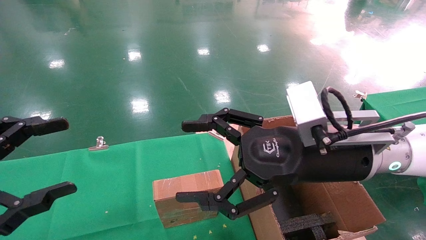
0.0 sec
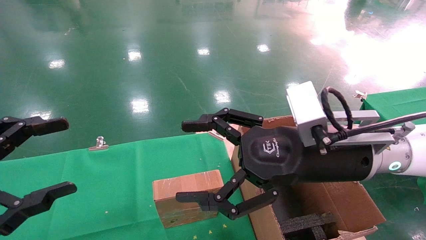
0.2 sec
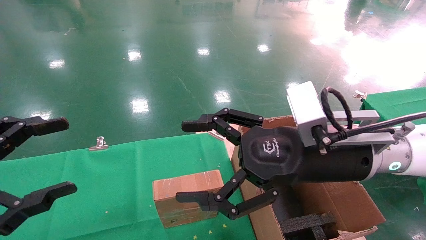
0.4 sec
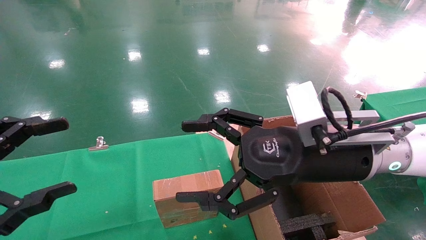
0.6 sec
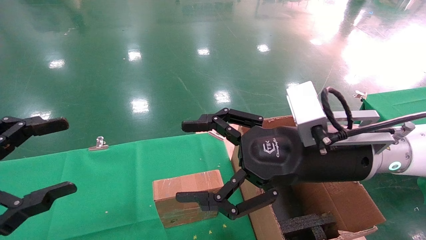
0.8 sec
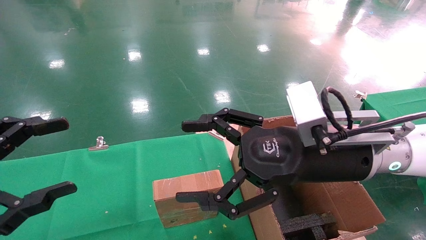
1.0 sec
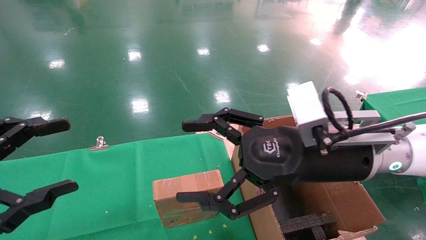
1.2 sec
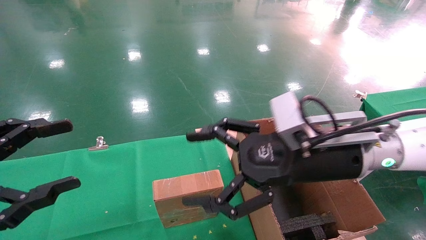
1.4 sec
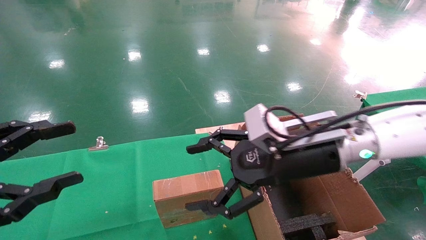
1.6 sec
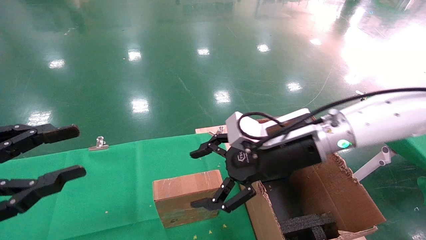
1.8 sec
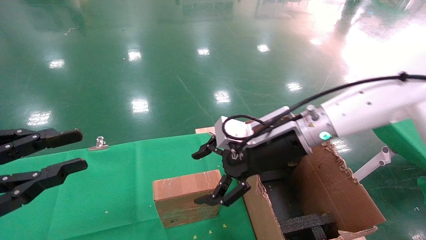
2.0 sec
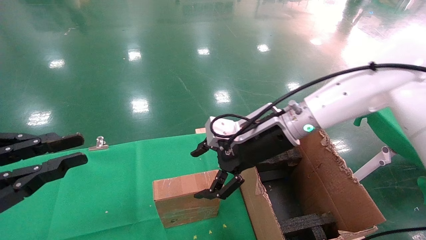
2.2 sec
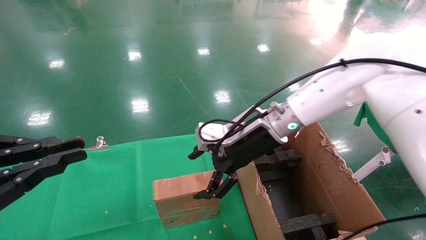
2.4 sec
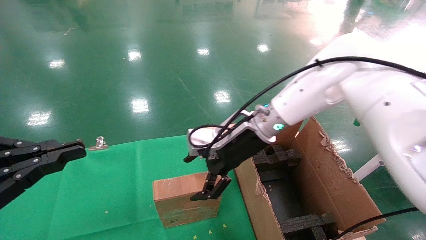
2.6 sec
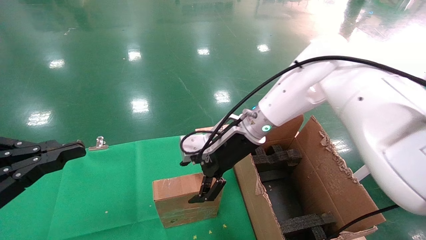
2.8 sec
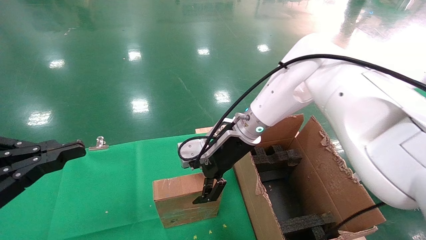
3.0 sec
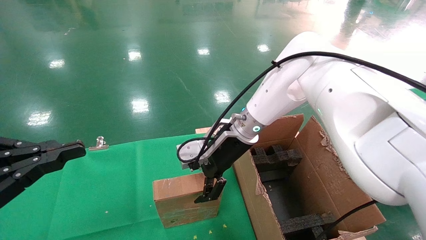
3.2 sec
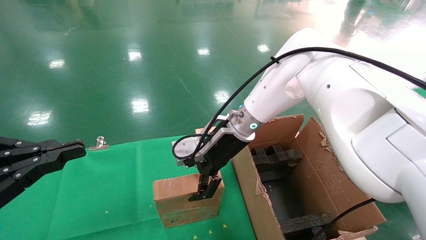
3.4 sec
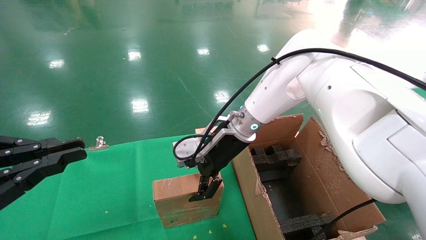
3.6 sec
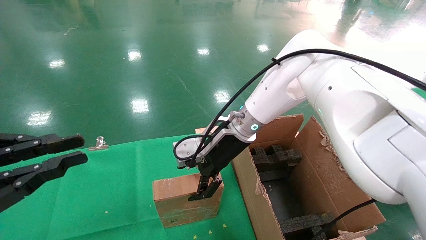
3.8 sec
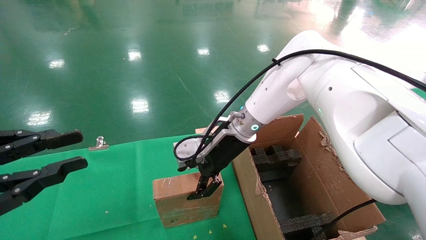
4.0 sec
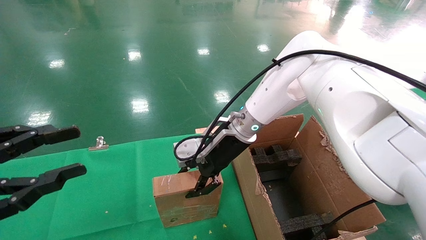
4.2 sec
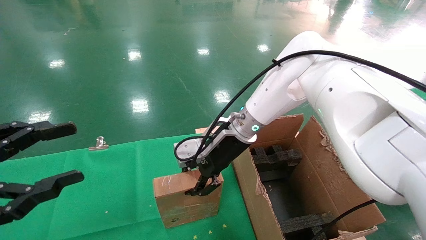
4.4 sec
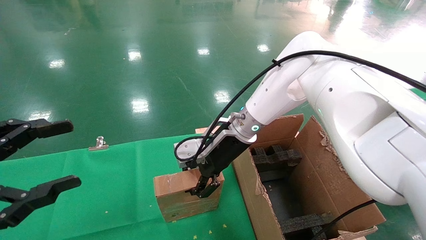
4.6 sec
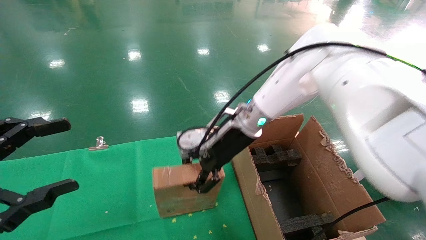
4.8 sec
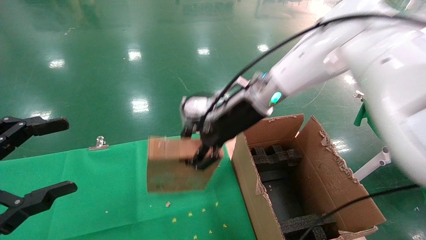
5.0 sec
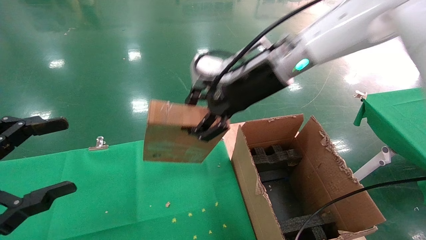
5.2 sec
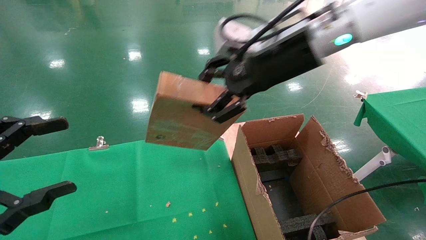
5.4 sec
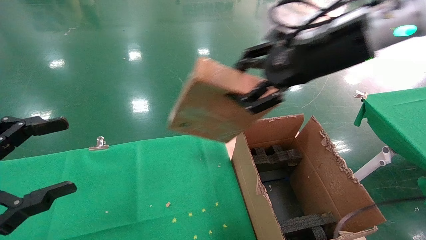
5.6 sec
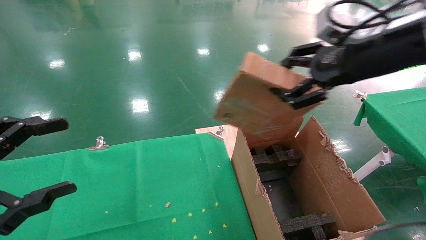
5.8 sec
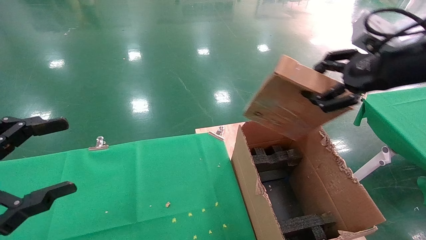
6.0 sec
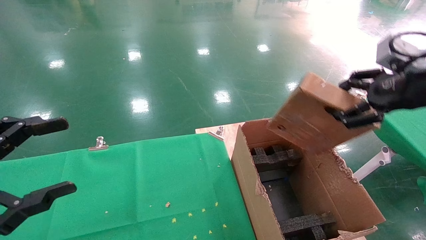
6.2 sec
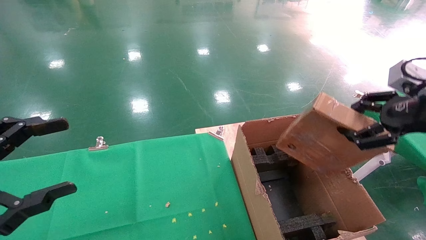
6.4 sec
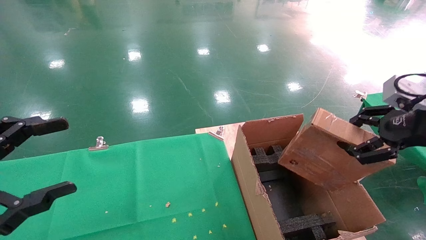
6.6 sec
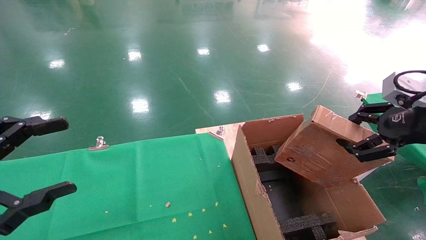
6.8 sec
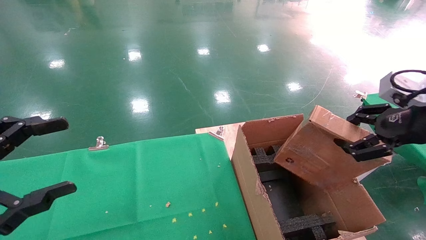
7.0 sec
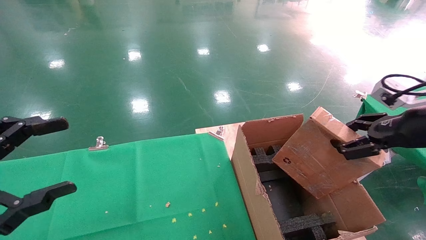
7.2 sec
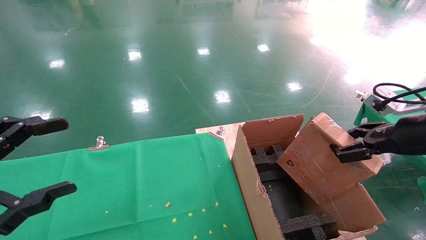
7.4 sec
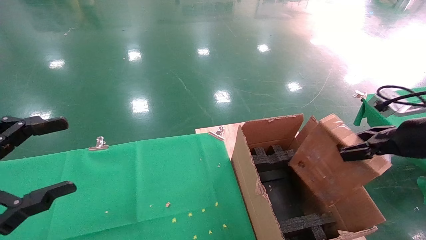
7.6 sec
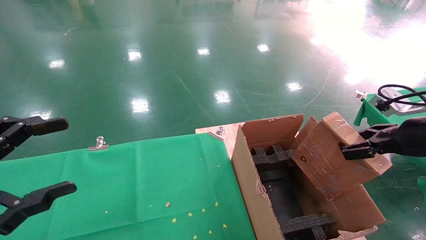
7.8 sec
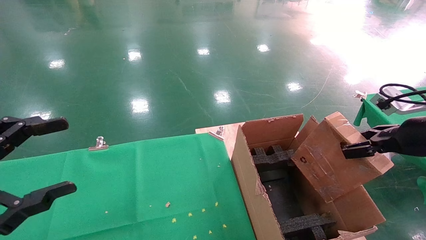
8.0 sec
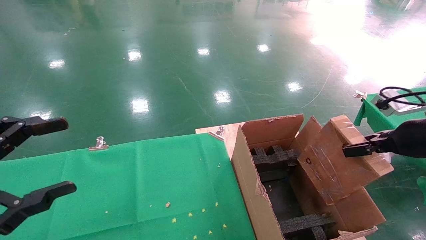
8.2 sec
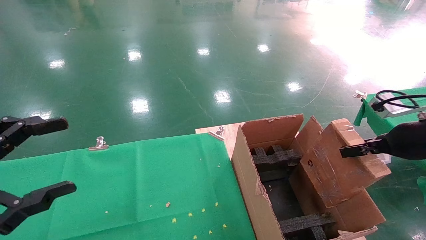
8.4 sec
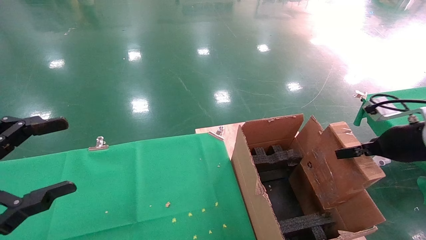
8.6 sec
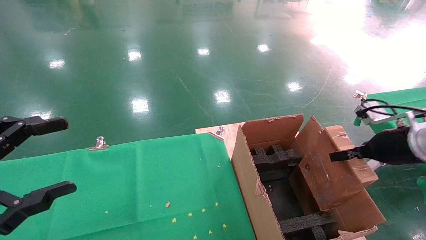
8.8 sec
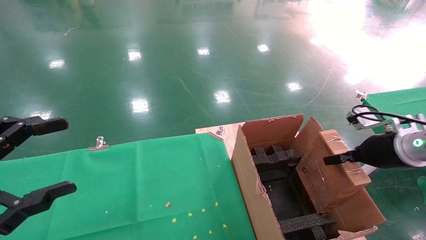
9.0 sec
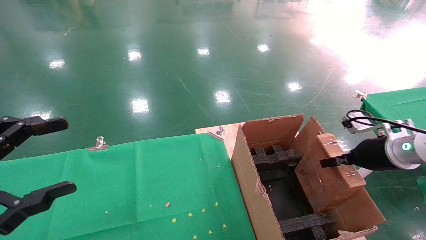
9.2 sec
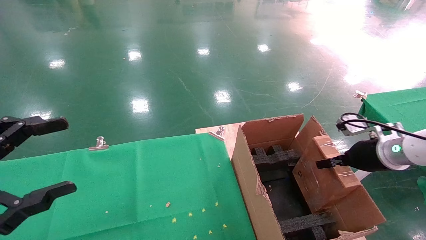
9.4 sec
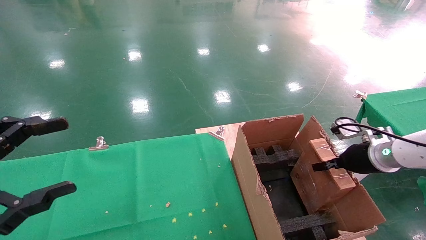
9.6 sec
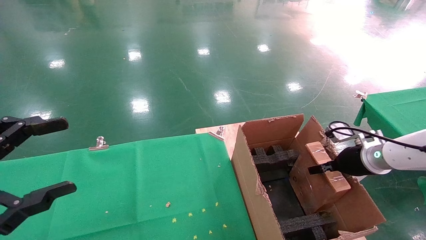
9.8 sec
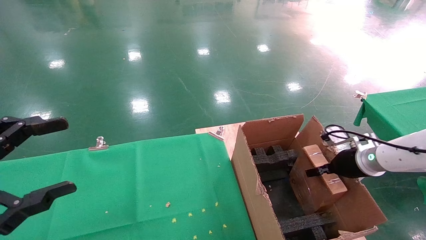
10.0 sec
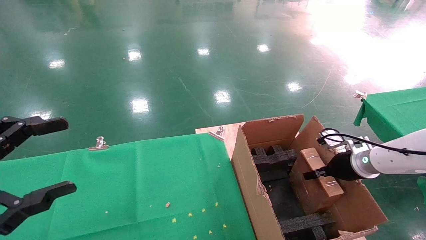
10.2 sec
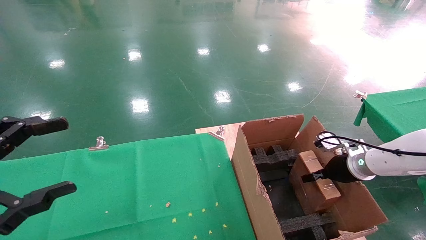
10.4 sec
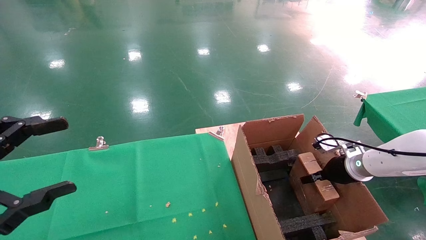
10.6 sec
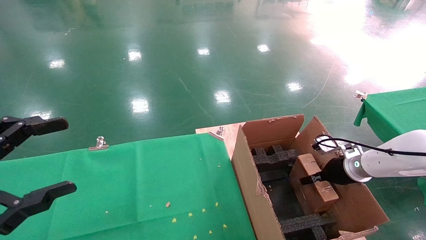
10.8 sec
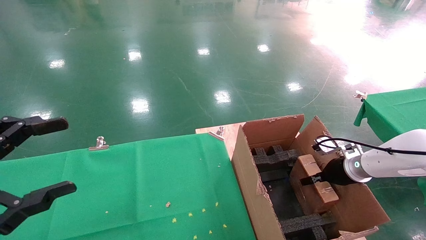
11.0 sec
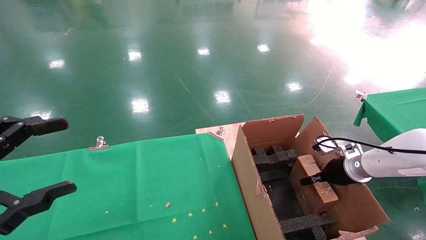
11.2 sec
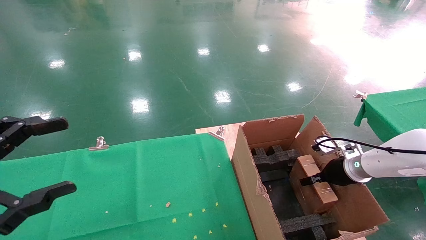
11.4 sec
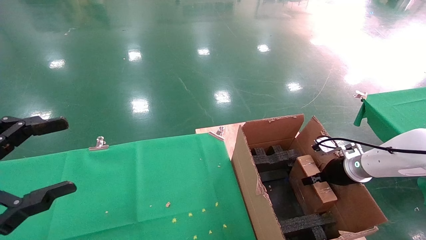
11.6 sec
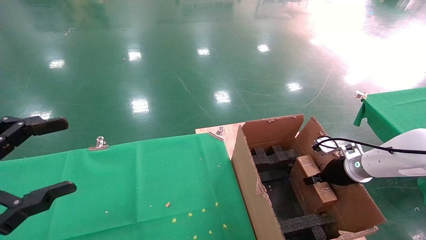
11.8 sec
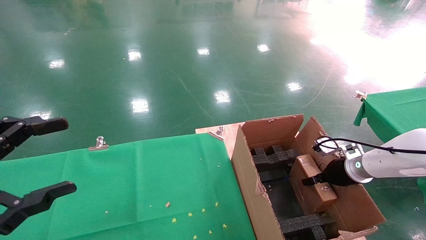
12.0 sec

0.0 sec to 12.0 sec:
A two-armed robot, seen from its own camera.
Task of the whole recording: using a robotic arm to pick up a cardboard box and palace it the carton.
Step, 1.4 sec to 4.6 sec: Pick up the mouse and the power cord paper box.
0.0 sec to 1.6 sec: The grippers make only small movements.
1.6 sec to 3.0 sec: The right gripper is displaced forward and to the left by approximately 15 cm. The left gripper closes up.
3.0 sec to 4.4 sec: The left gripper opens its fingers. The right gripper closes.
4.4 sec to 6.0 sec: The right gripper is displaced to the right, upward and backward by some 35 cm. The left gripper opens.
6.0 sec to 7.6 sec: The right gripper moves downward and to the right, some 15 cm.
7.6 sec to 9.0 sec: The right gripper is displaced forward and downward by approximately 10 cm.
9.0 sec to 10.4 sec: The right gripper heads downward and forward, covering about 15 cm.
10.4 sec to 12.0 sec: There are only small adjustments of the grippers.

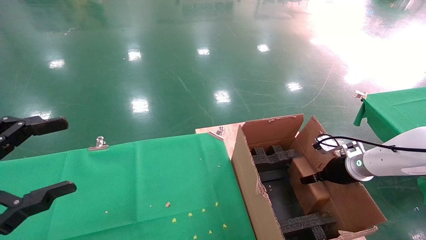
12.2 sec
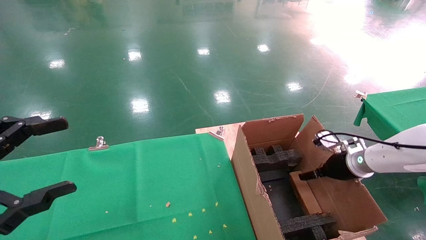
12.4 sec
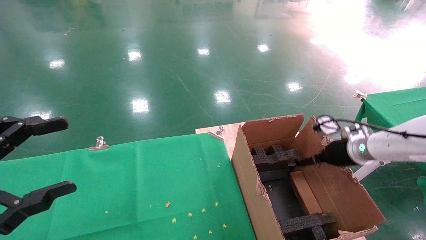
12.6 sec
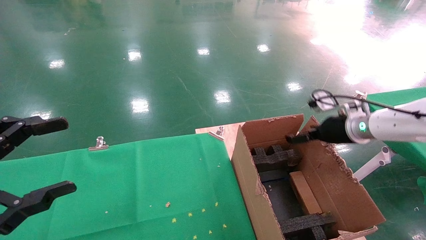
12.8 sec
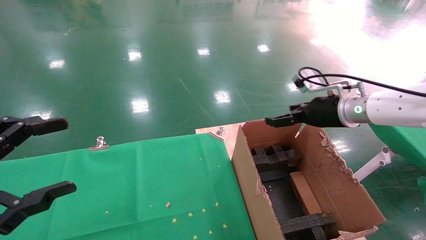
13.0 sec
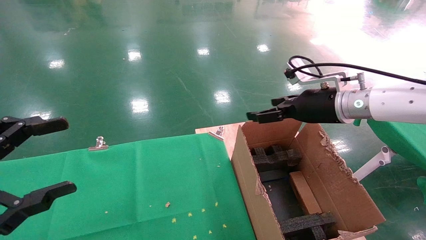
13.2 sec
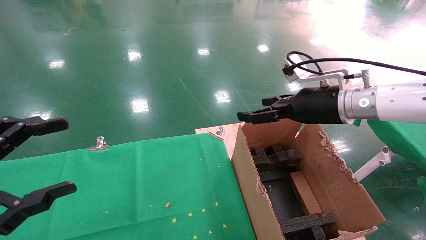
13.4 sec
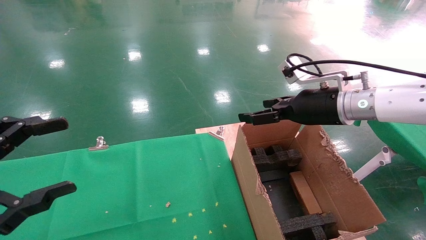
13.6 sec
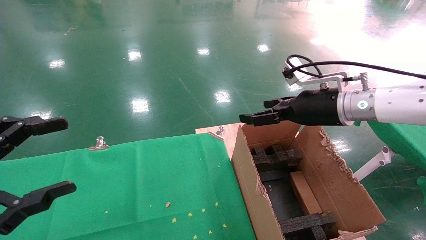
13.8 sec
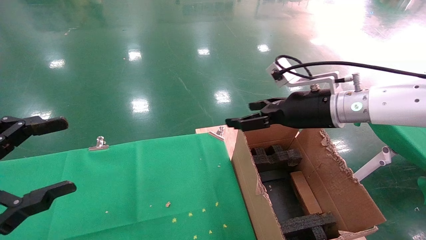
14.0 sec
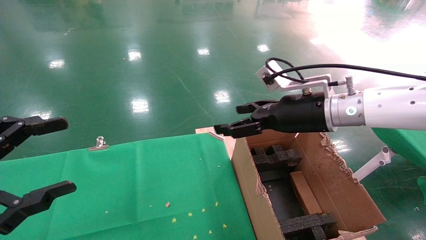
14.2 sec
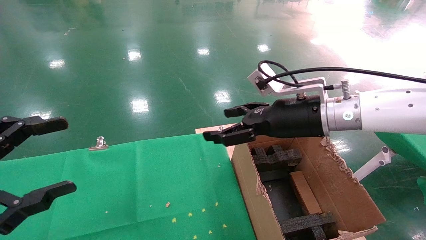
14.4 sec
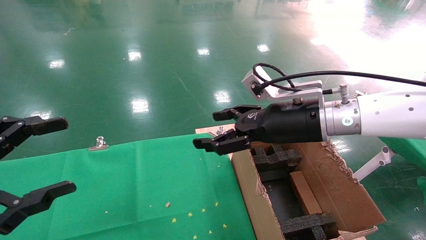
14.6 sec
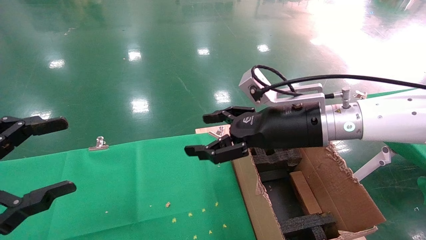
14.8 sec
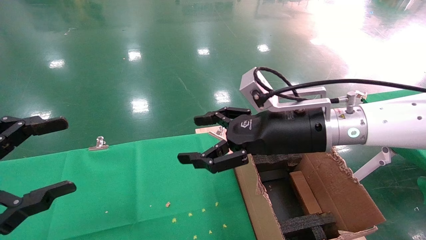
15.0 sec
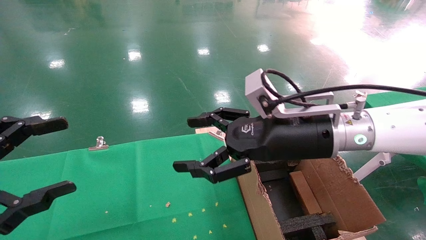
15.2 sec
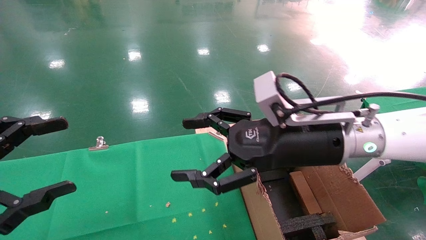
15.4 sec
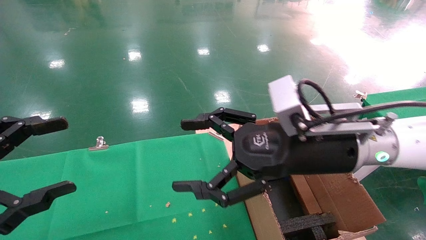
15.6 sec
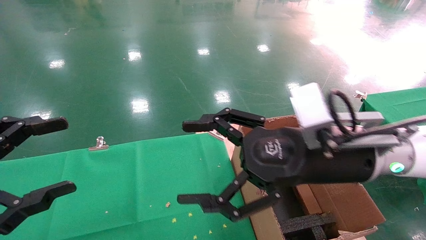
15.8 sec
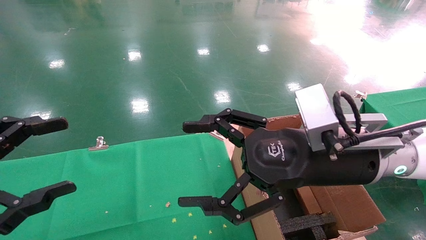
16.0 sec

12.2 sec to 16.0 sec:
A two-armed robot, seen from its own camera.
Task of the whole recording: using a robotic arm to pick up a cardboard box and palace it the carton.
12.2 sec to 13.4 sec: The right gripper heads upward and to the left, covering roughly 20 cm, and opens.
13.4 sec to 14.8 sec: The right gripper heads to the left, covering roughly 10 cm.
14.8 sec to 16.0 sec: The right gripper shifts approximately 5 cm backward.

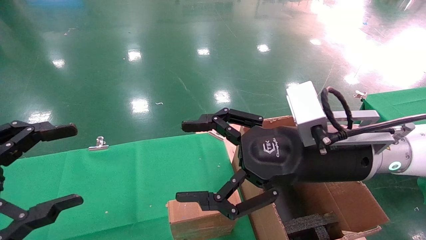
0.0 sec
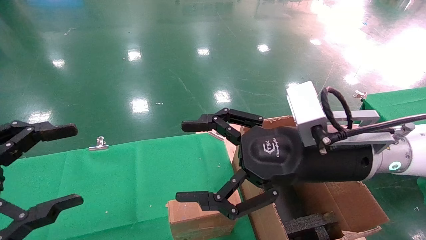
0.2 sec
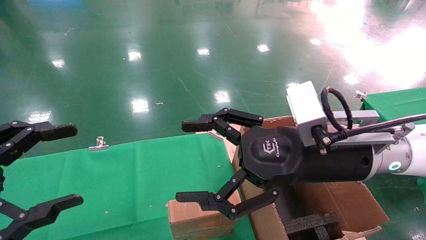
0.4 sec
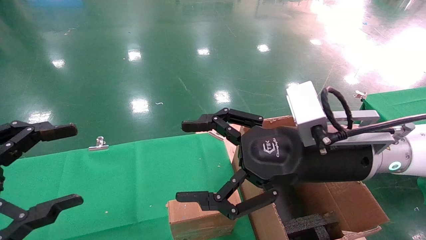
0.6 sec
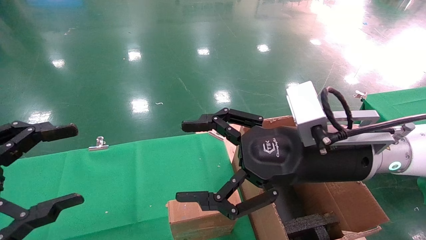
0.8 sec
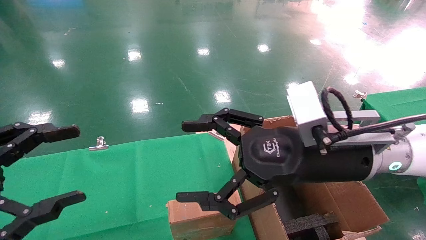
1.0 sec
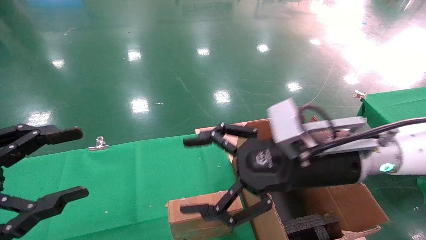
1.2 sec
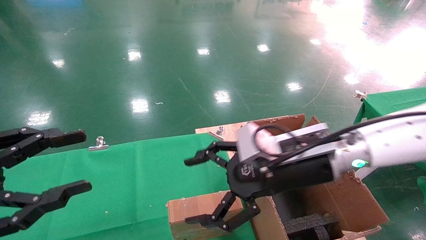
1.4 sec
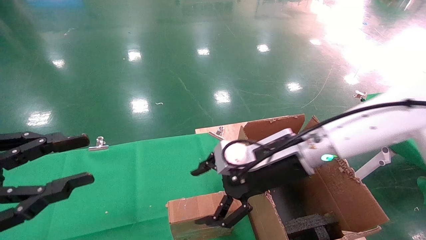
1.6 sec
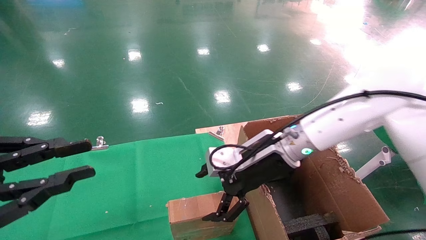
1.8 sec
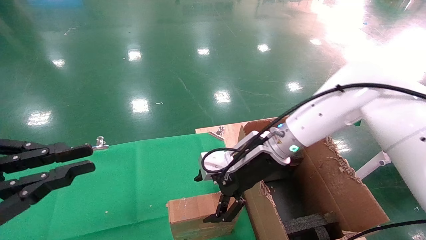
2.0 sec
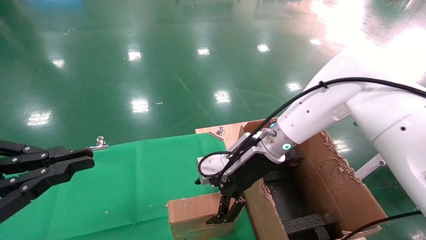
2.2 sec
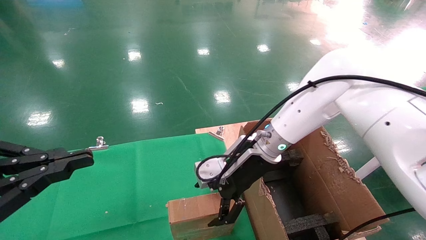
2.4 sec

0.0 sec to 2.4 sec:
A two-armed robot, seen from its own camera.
Task of the whole recording: using a robotic arm to pick up a cardboard box and palace it the carton.
0.0 sec to 1.2 sec: The grippers make only small movements.
1.2 sec to 2.4 sec: The left gripper closes its fingers; the right gripper heads forward and to the left, covering approximately 15 cm.
